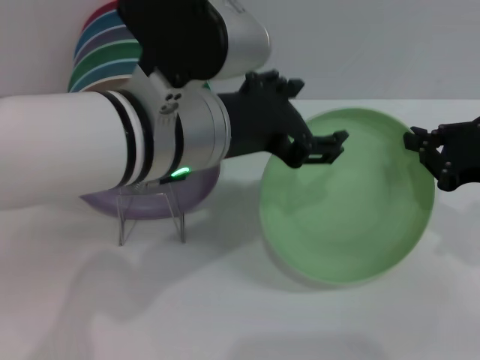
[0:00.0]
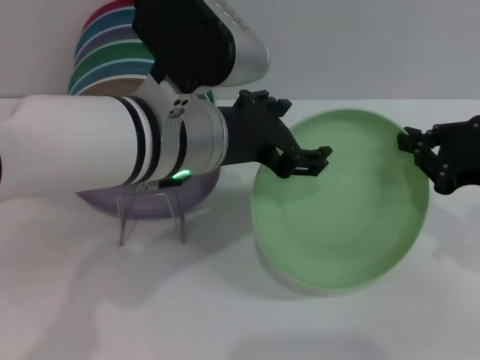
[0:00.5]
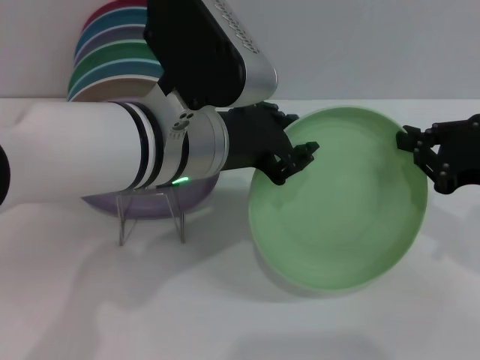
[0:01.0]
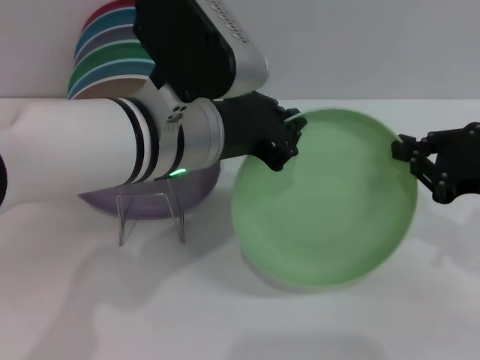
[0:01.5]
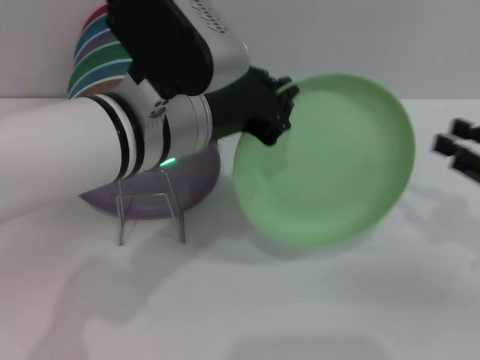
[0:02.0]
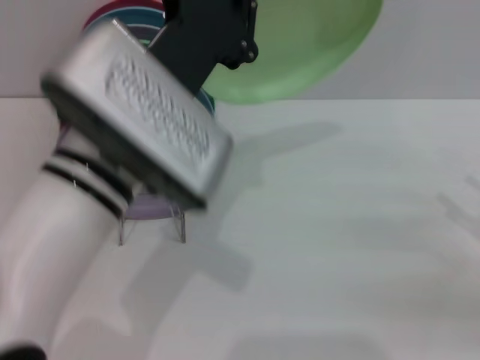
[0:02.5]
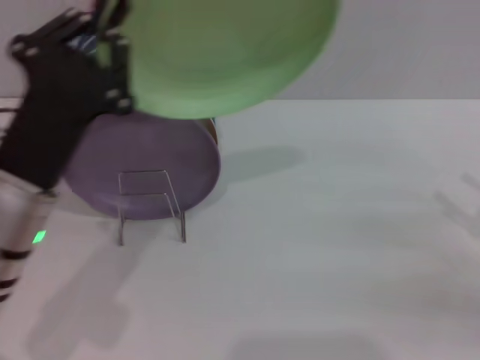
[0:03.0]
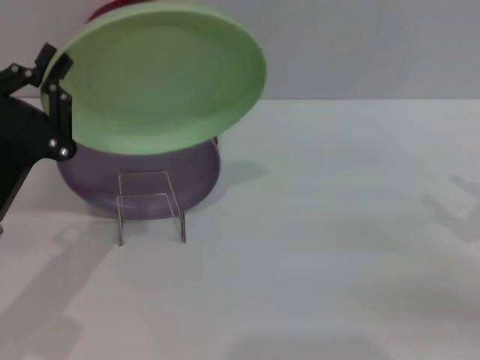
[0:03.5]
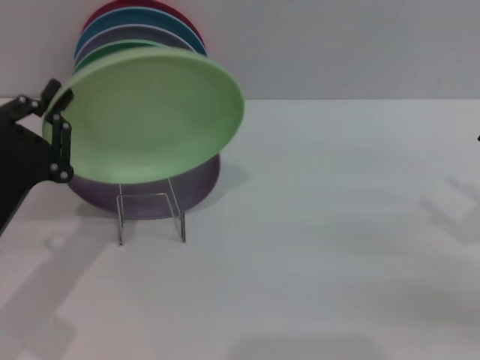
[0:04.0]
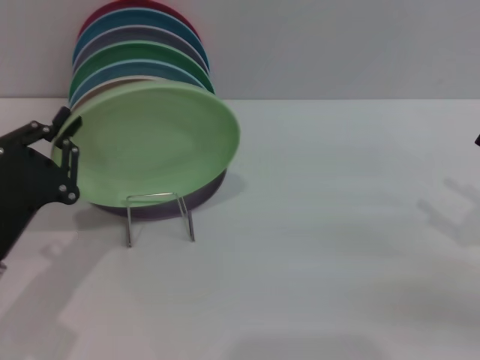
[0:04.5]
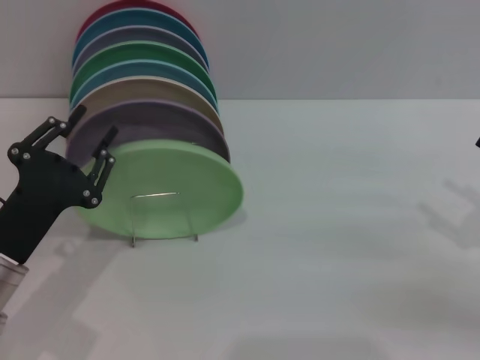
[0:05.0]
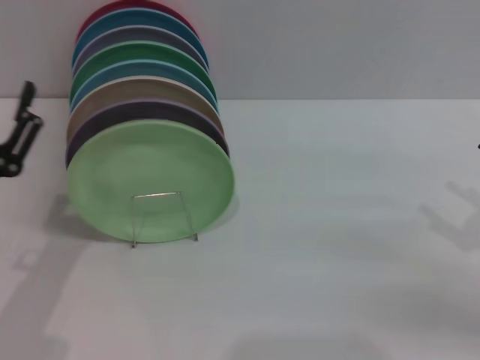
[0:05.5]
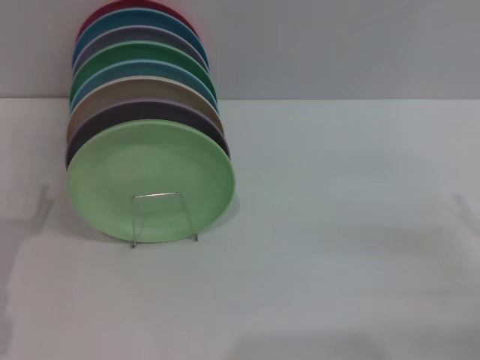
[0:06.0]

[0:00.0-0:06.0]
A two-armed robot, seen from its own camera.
Task of the whole recording: Grip the plate with one hand, pass it to the other, then set it on the shelf.
Step, 0:00.0 to 0:02.0: Pass the plate from the right gripper to the left gripper.
Step, 0:02.5 to 0:05.0: Place the plate on the shelf with the left gripper.
0:00.0 to 0:02.0: The left gripper closes. Meanwhile the right gripper shifts by approximately 5 cm.
0:02.0 to 0:04.0: The right gripper opens its fingers. The left gripper is displaced to the left and downward by some 20 cm.
0:04.0 to 0:06.0: The left gripper shifts by about 5 cm, and opens. Meanwhile the right gripper ends up approximately 5 cm from where it was.
